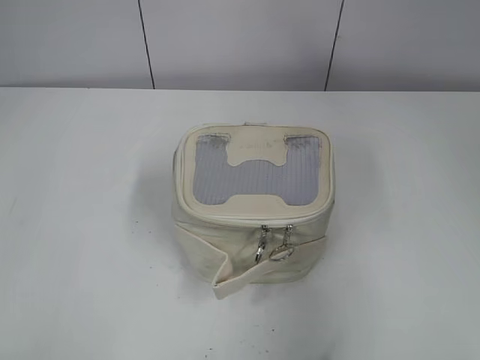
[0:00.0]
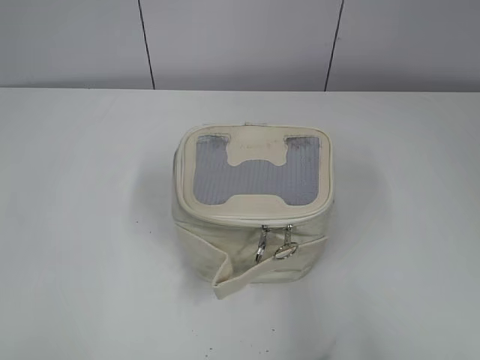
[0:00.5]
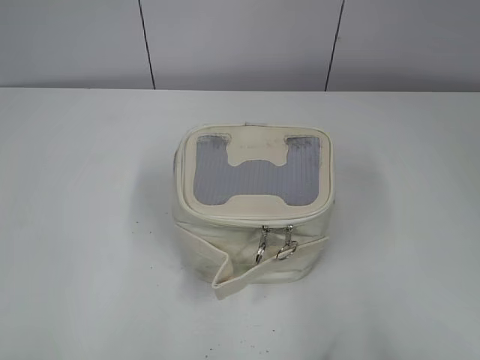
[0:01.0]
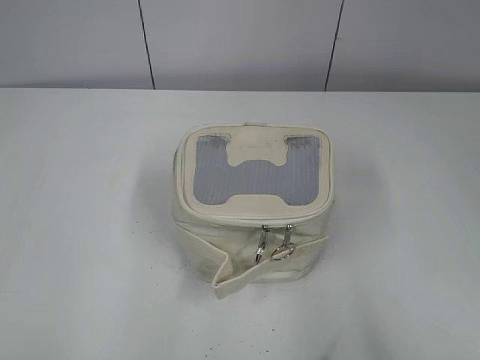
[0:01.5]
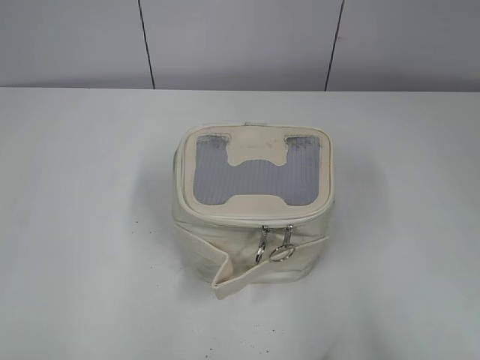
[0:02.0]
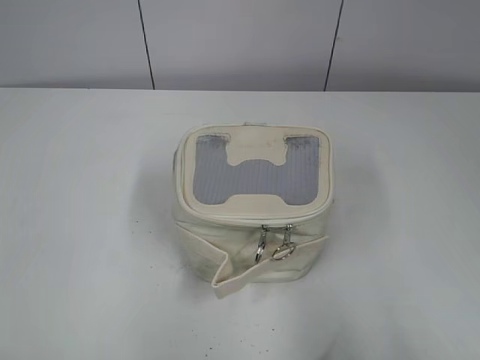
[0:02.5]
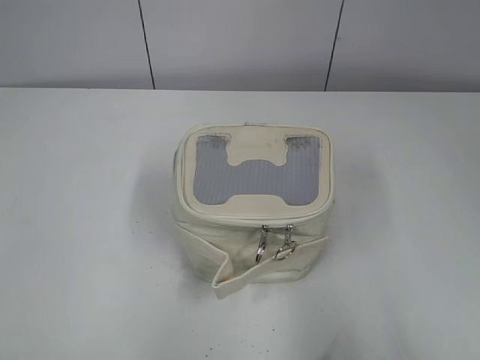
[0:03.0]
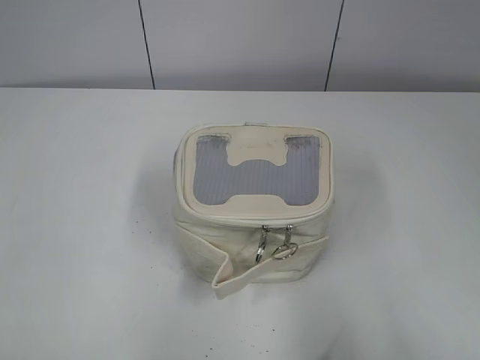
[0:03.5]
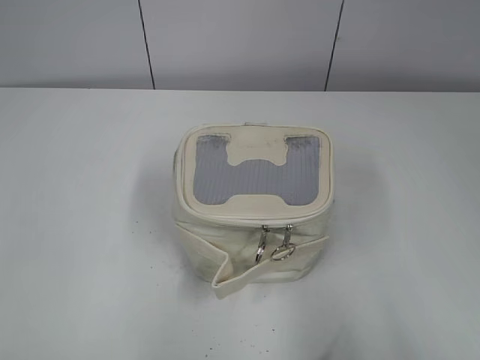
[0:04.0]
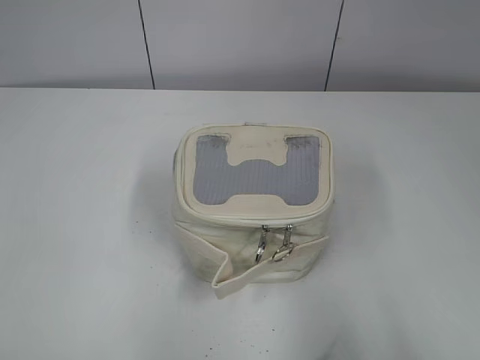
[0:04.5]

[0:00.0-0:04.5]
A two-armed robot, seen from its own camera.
0:00.0 to 0:02.0: The left gripper travels backward, downward and to the left by some 30 cm. Meanwhile the right gripper goes roughly 10 cm downward and backward.

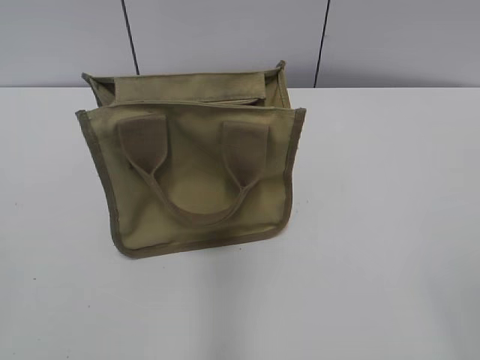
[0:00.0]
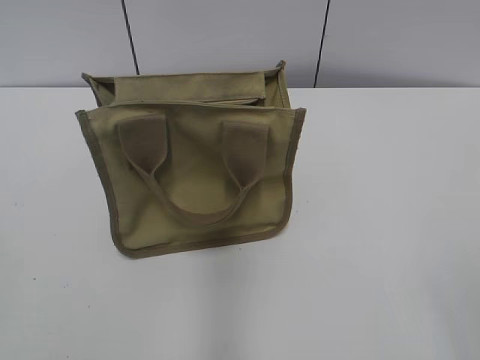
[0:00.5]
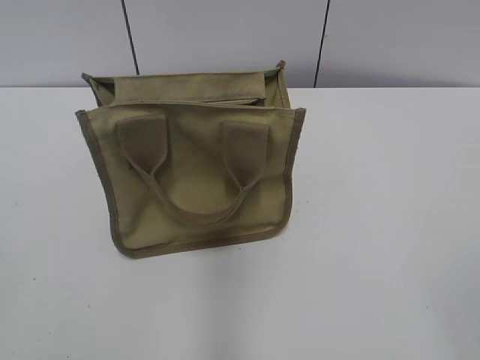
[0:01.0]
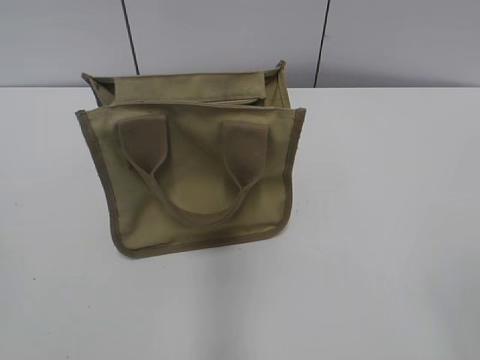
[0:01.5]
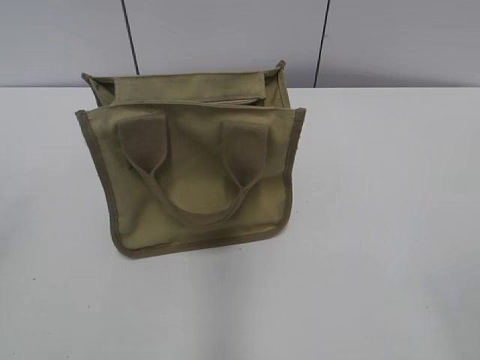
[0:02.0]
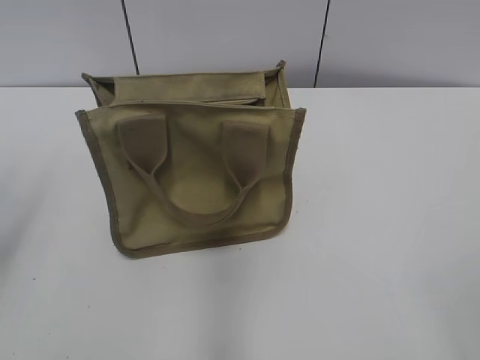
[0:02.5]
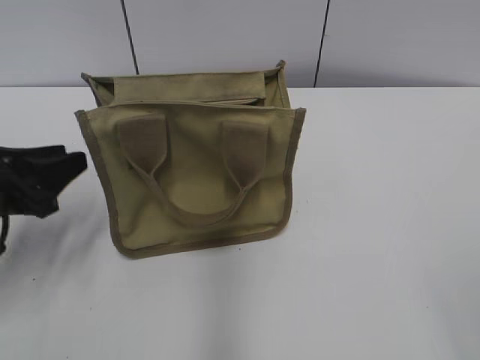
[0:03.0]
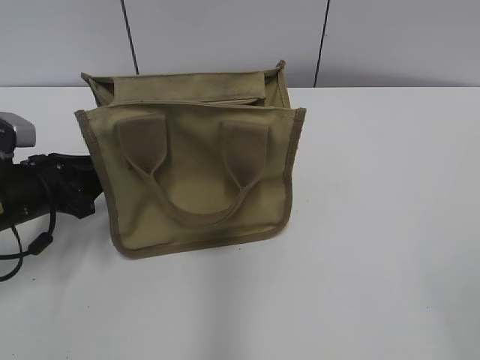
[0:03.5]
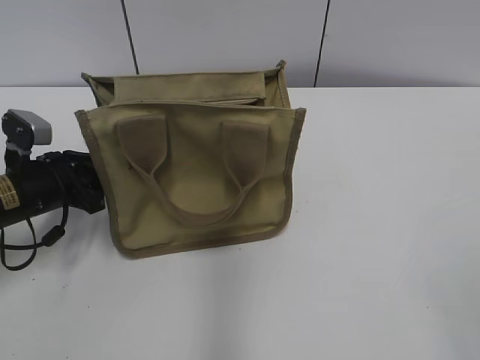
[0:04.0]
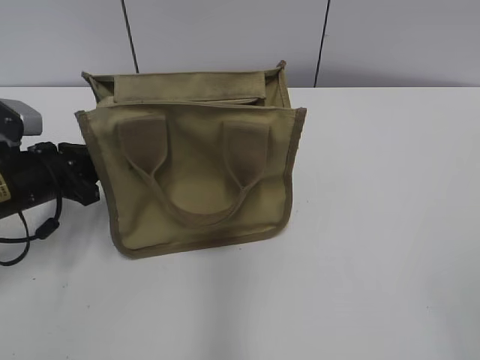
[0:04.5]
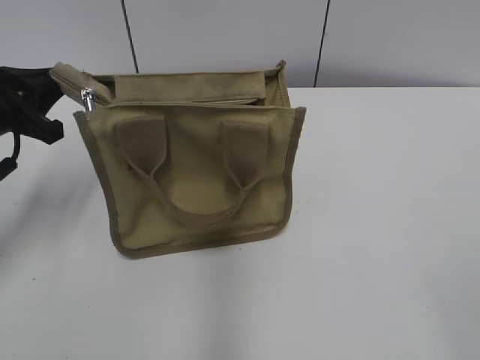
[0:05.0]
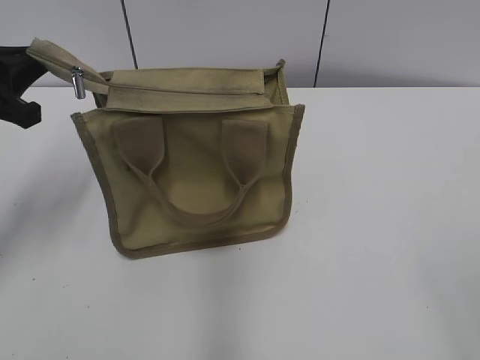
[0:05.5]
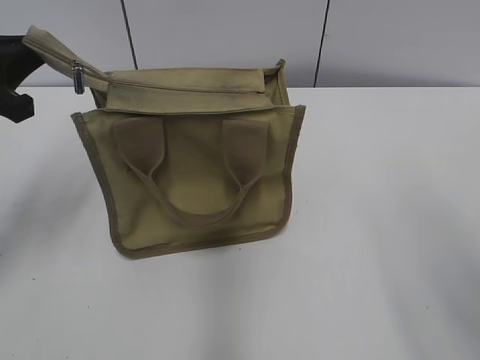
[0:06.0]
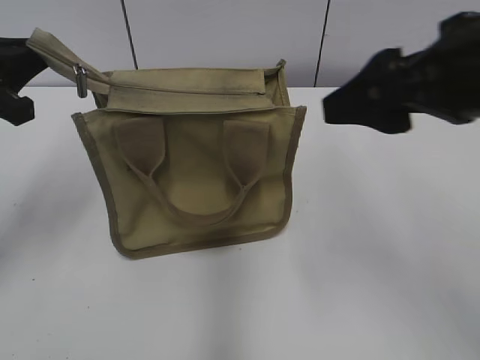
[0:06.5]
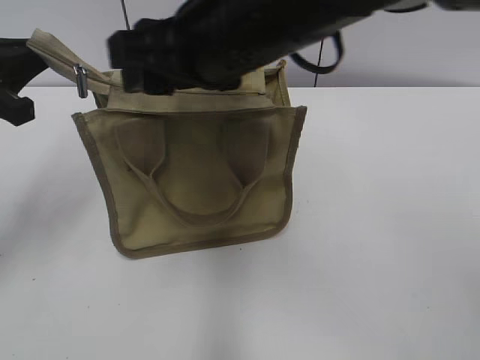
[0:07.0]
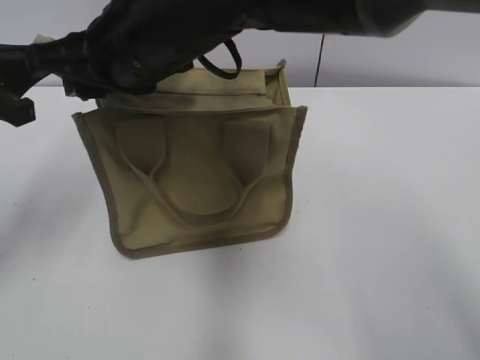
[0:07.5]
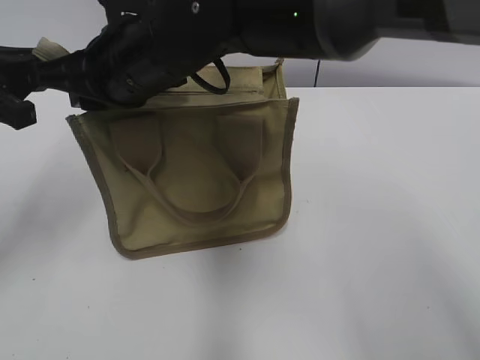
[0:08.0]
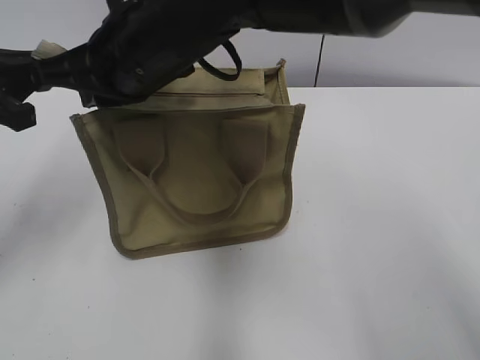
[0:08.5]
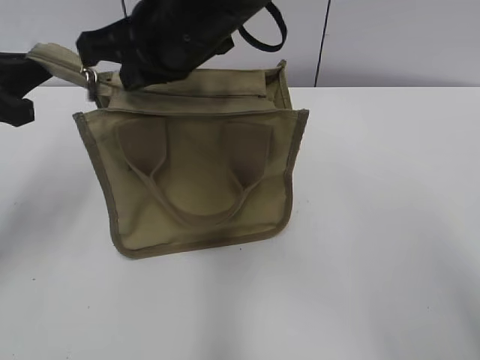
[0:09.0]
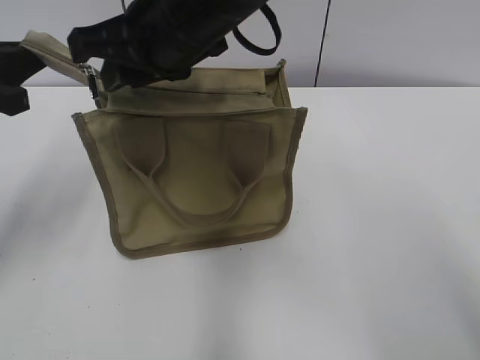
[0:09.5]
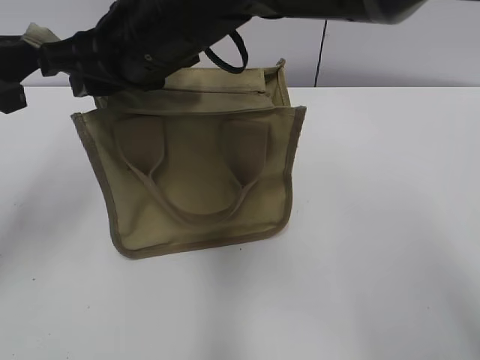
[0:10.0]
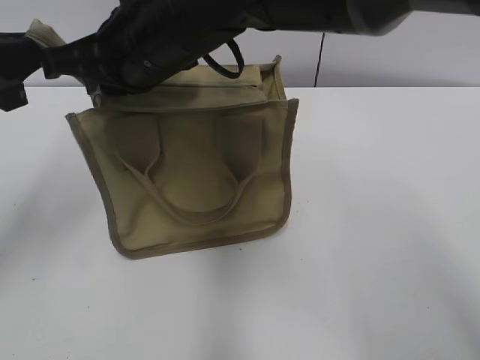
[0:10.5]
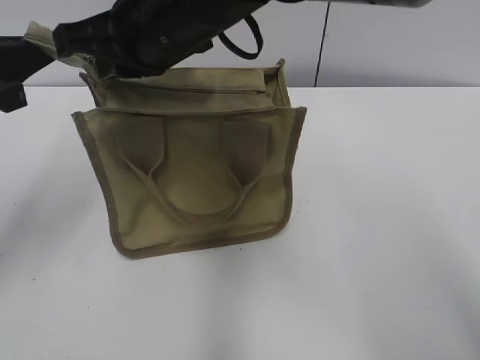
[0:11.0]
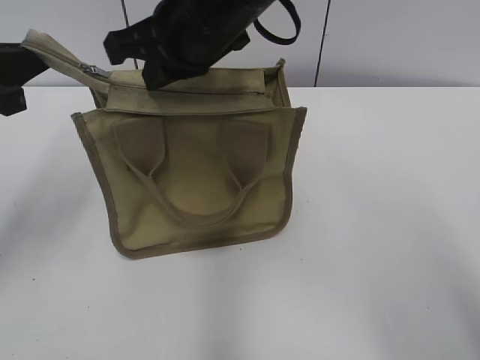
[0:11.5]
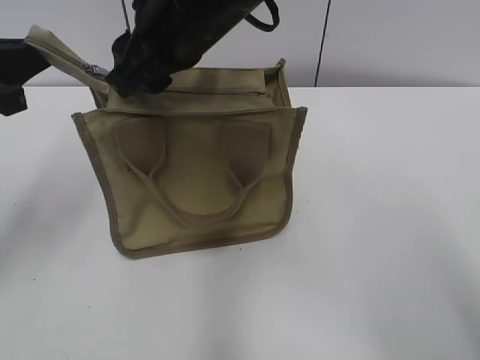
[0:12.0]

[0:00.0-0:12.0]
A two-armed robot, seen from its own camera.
0:02.0 to 0:04.0: The left gripper is displaced forward and downward by approximately 35 cm, and closes up.
0:04.0 to 0:06.0: The left gripper moves upward, some 15 cm, and closes its fingers; the right gripper is displaced forward by approximately 10 cm.
0:06.0 to 0:08.0: The right gripper travels to the left and forward by approximately 40 cm, and closes.
0:10.0 to 0:12.0: The right gripper closes and opens again.

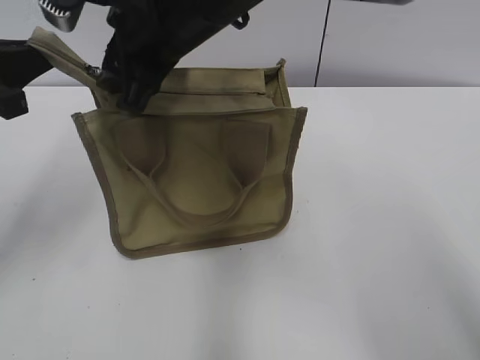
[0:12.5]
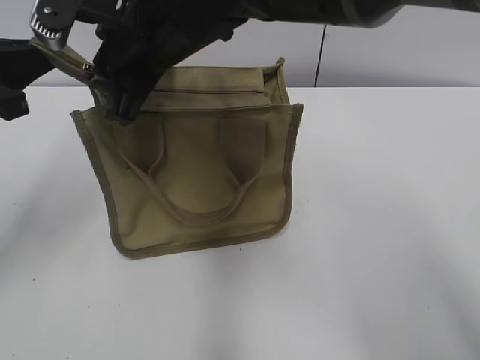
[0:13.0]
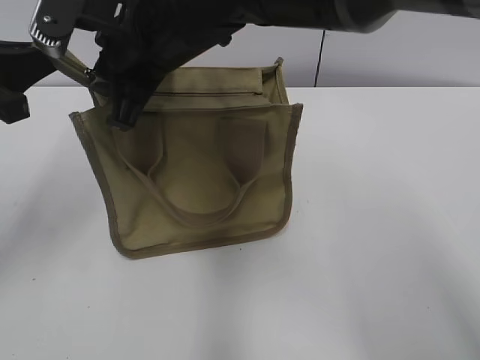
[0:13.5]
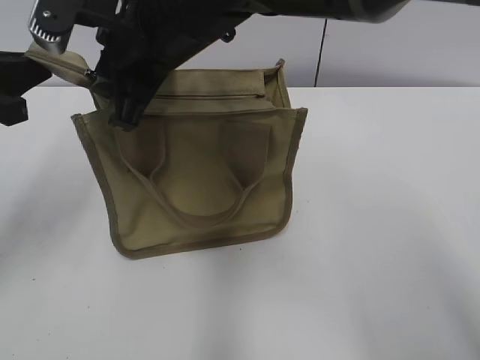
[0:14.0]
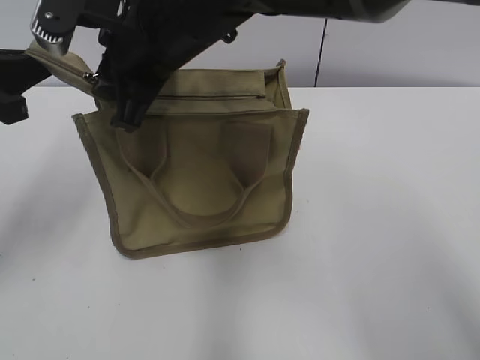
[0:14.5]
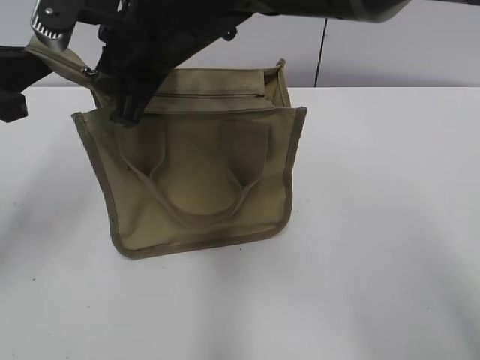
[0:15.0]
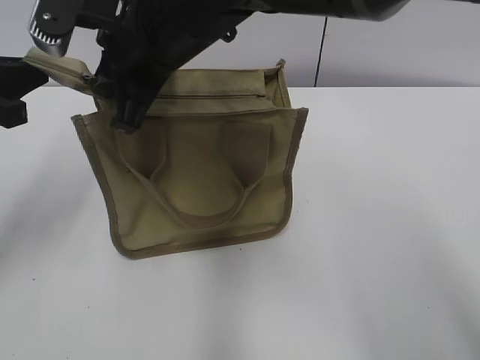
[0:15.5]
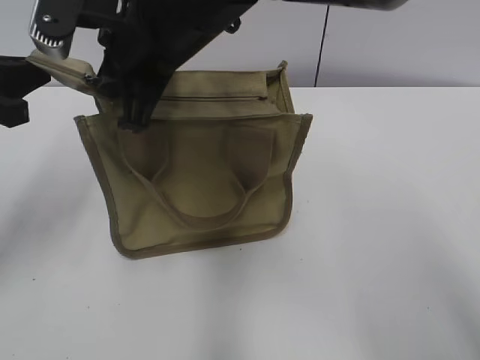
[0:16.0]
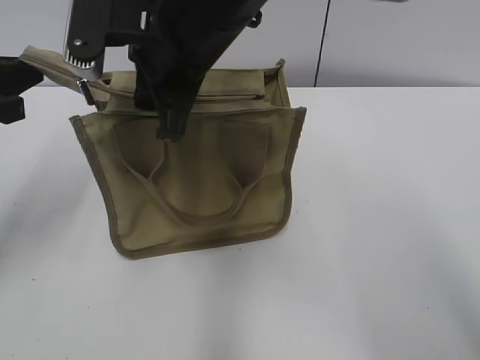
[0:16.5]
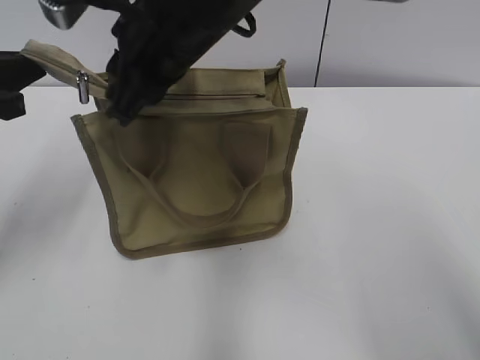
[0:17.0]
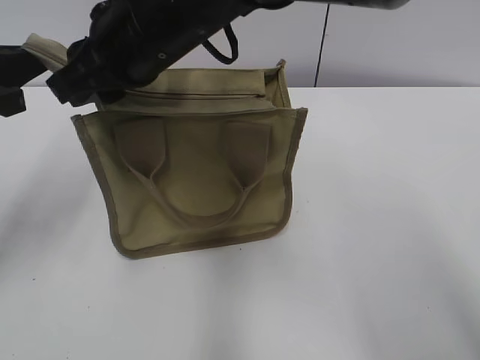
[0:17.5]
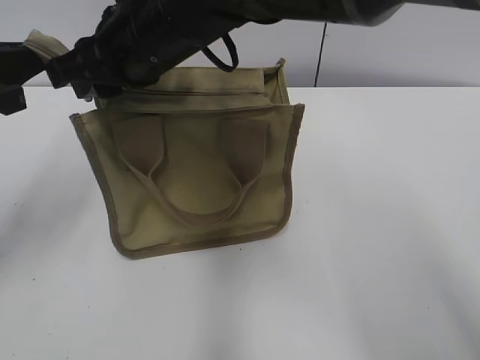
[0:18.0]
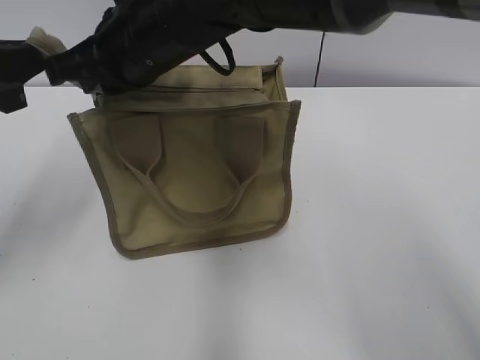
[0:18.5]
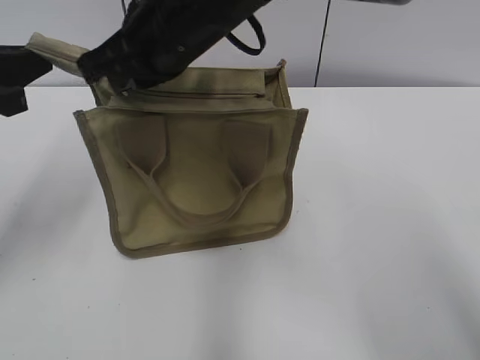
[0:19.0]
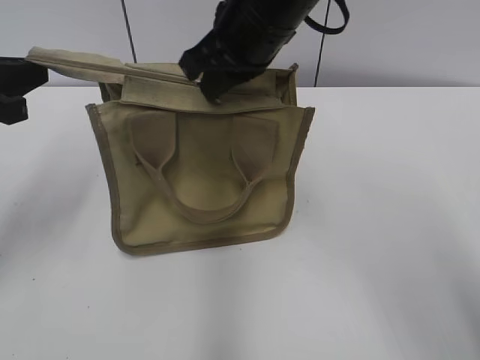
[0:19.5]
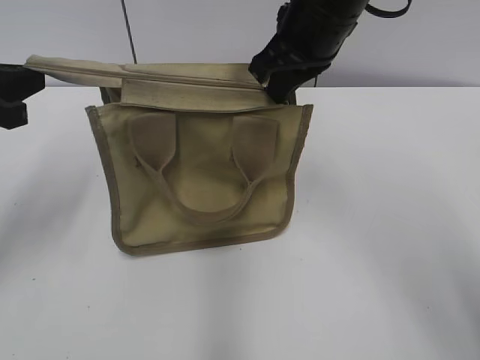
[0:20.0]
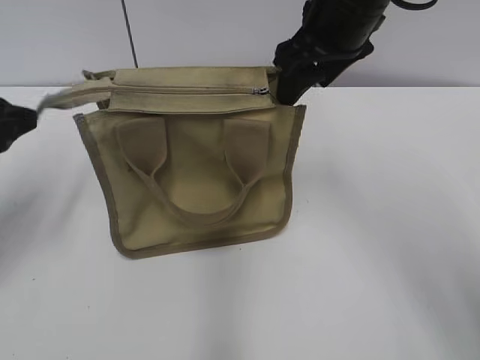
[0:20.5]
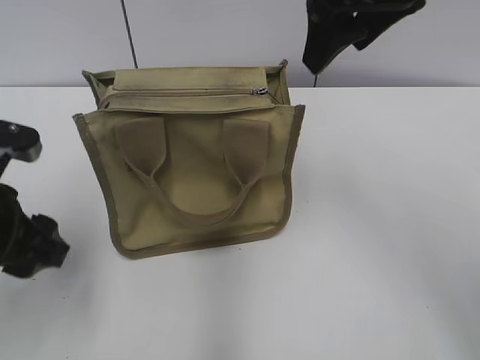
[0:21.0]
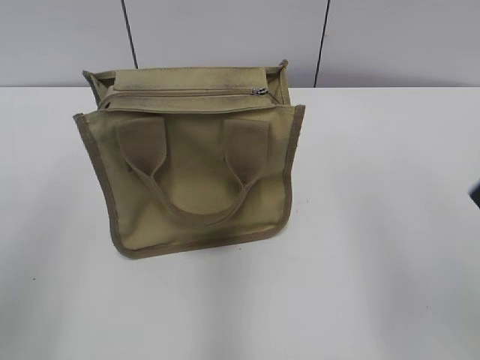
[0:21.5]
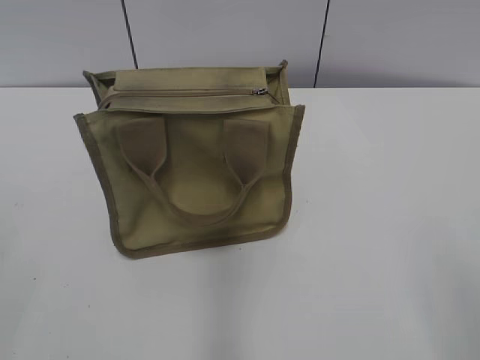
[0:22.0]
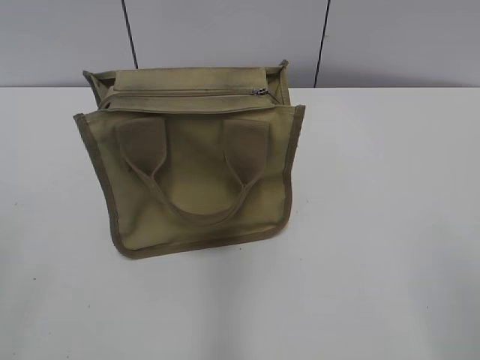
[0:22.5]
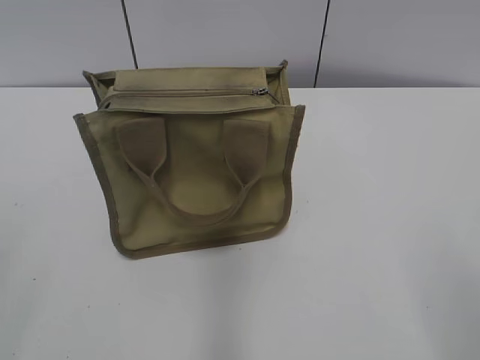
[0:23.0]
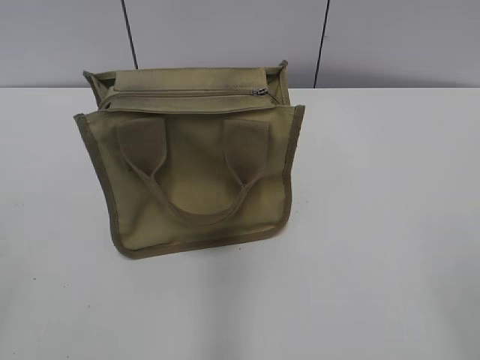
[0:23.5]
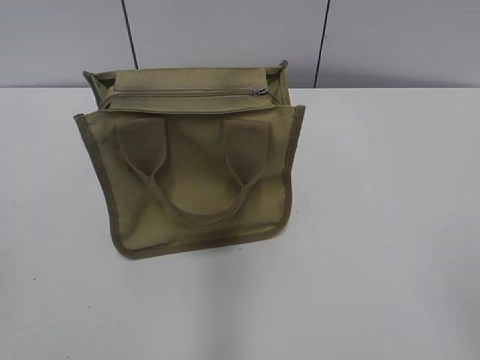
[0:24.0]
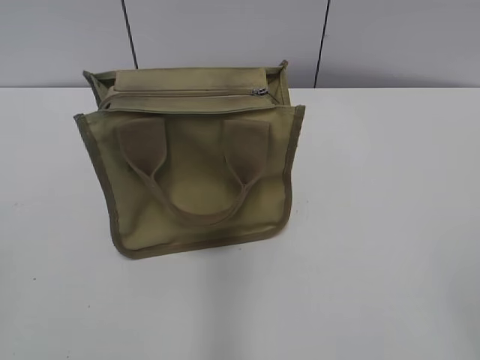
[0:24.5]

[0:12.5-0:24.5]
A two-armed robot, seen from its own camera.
Step, 0:12.5 to 0:20.0: Grab the zipper with your left hand.
0:12.5 to 0:16.5: The grippers stay close to where they were, moving slightly.
0:18.5 to 0:20.5: The right gripper travels to the right by about 15 cm, and opens its fingers, while the left gripper opens its fingers.
0:20.5 to 0:22.5: The left gripper is displaced backward by some 25 cm; the right gripper shifts about 40 cm backward and to the right.
